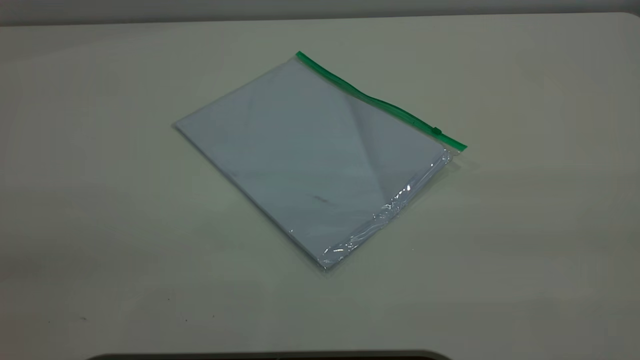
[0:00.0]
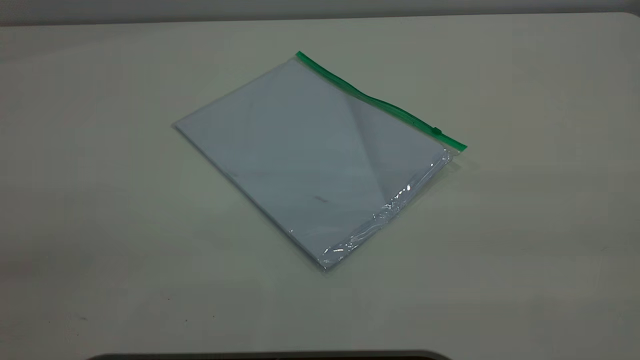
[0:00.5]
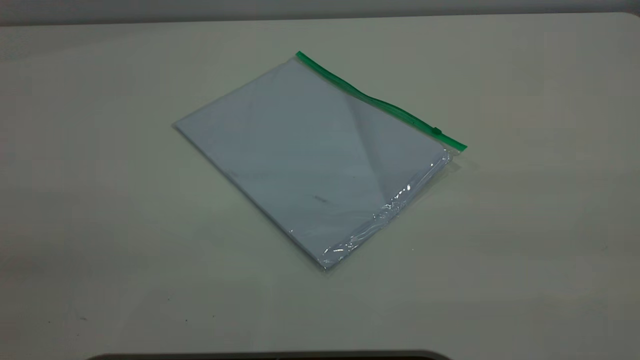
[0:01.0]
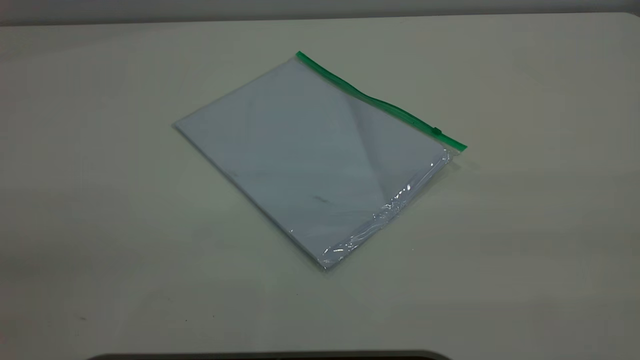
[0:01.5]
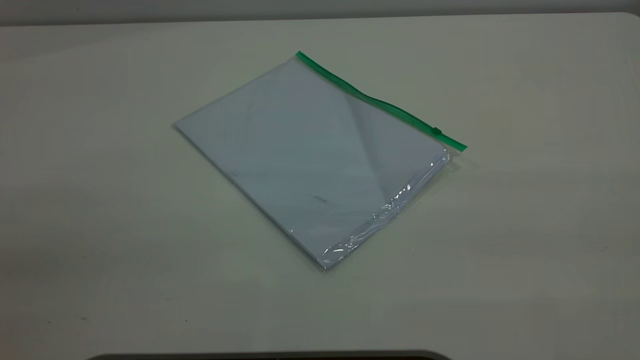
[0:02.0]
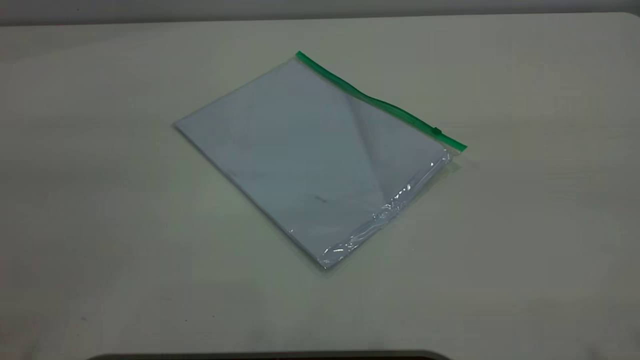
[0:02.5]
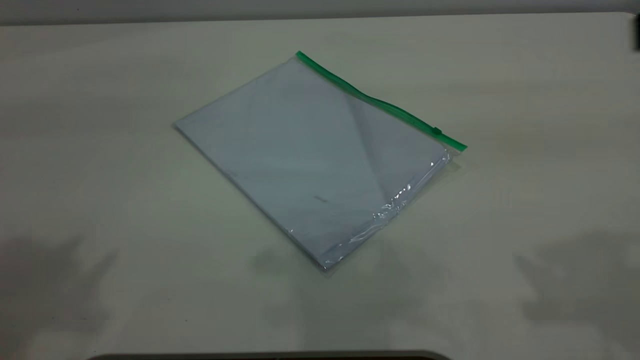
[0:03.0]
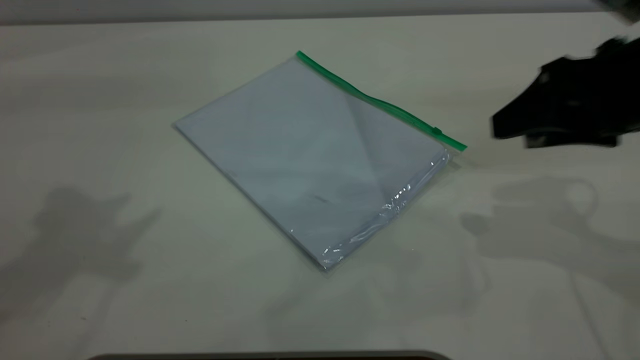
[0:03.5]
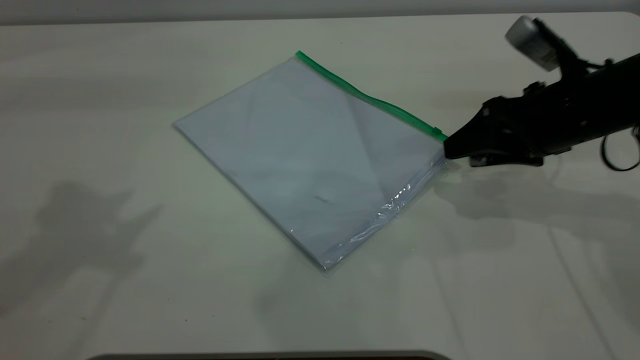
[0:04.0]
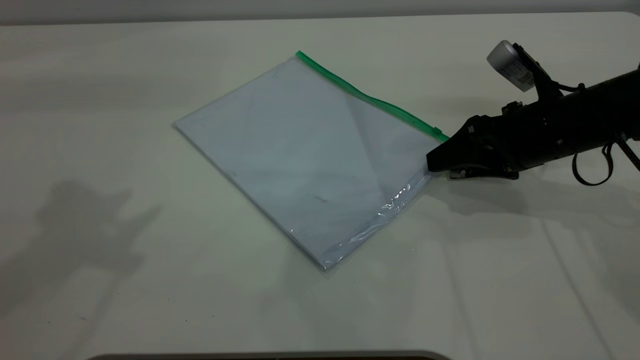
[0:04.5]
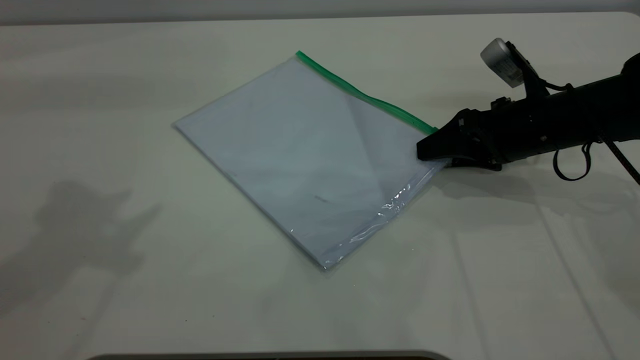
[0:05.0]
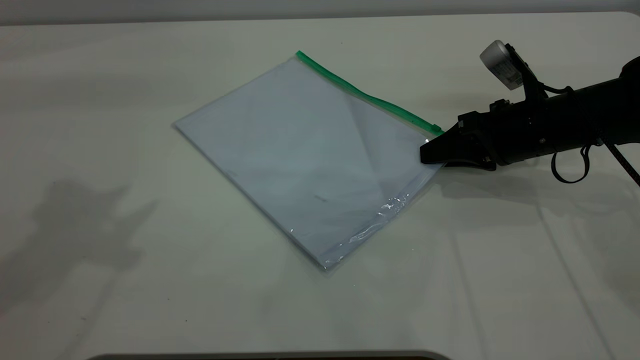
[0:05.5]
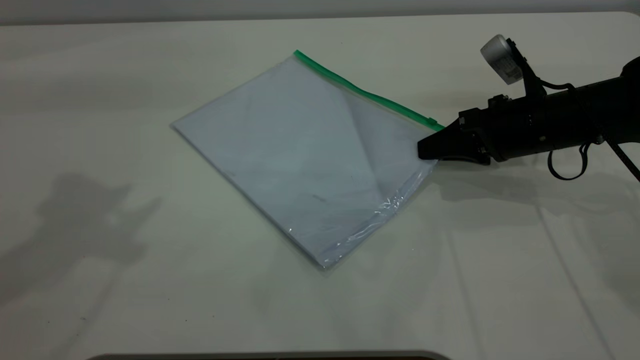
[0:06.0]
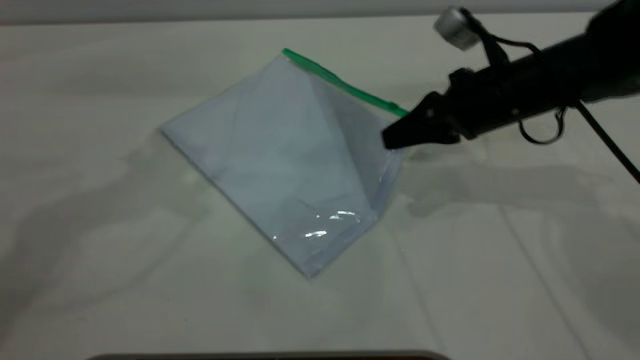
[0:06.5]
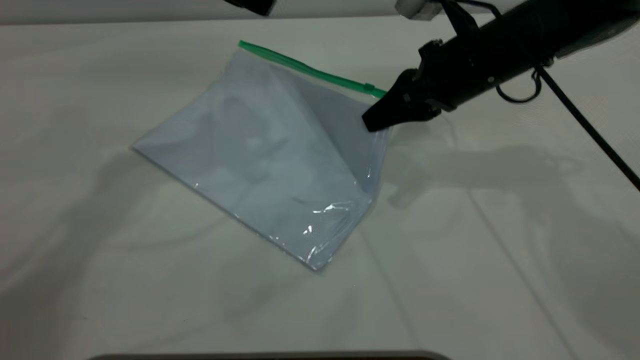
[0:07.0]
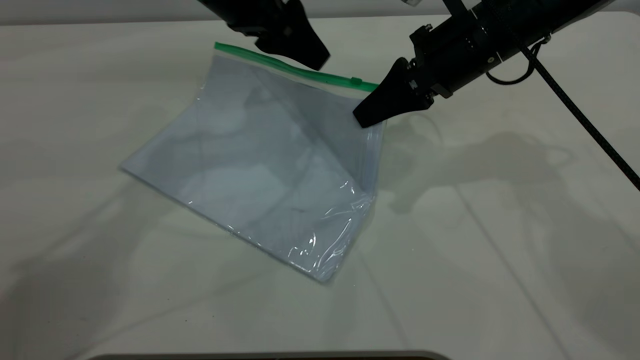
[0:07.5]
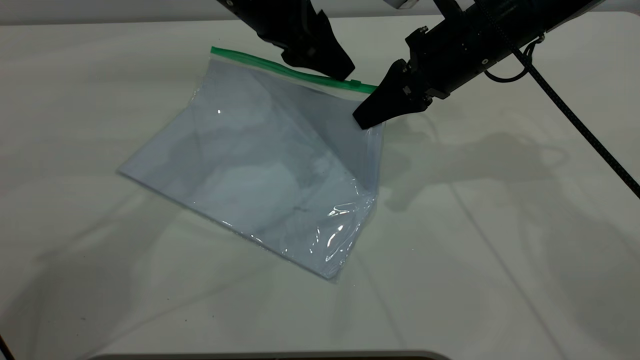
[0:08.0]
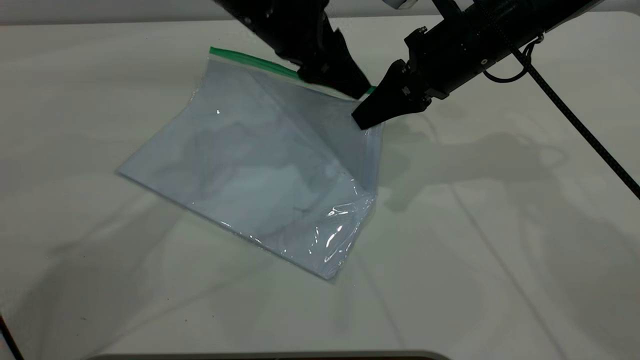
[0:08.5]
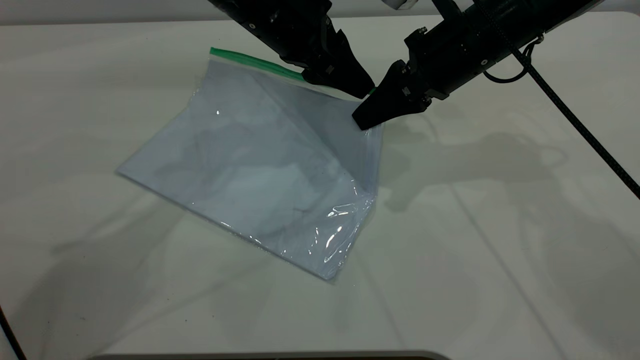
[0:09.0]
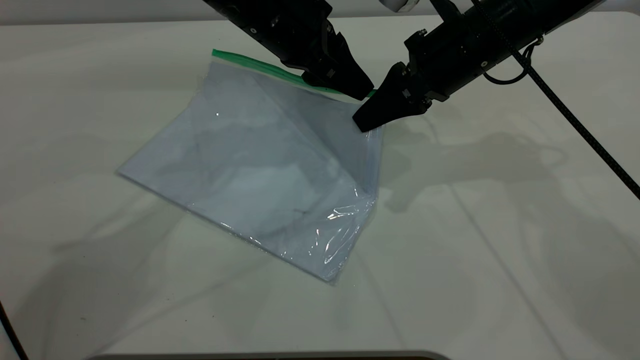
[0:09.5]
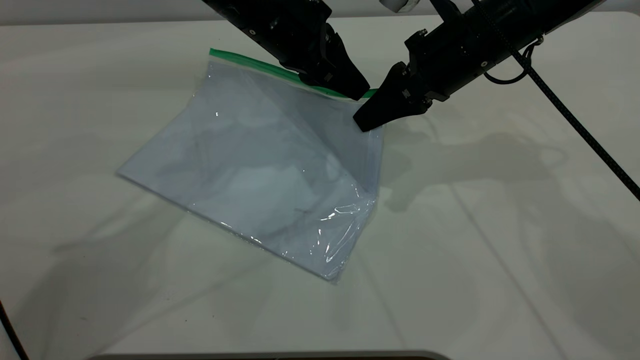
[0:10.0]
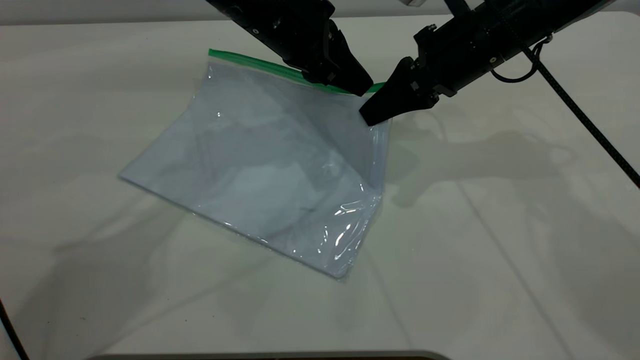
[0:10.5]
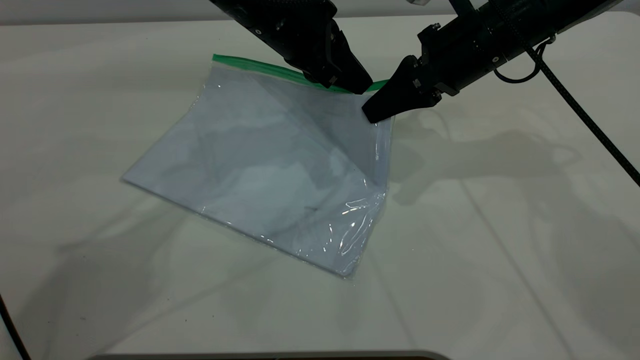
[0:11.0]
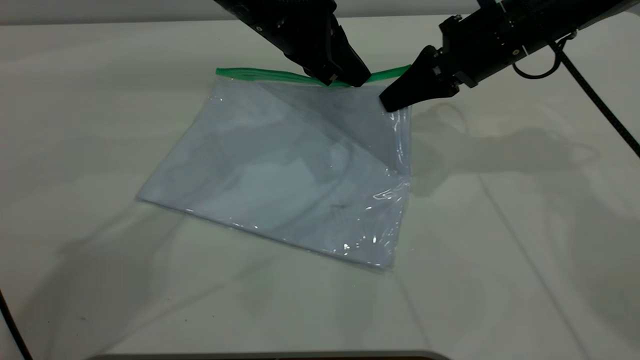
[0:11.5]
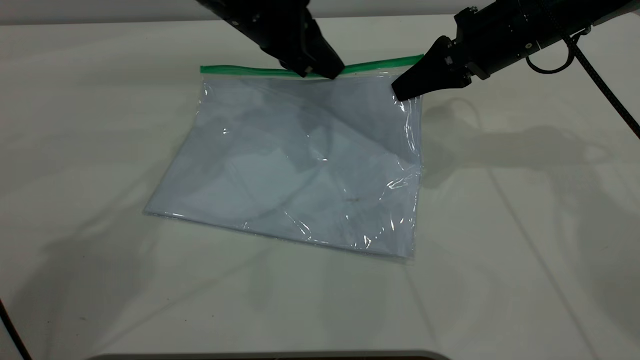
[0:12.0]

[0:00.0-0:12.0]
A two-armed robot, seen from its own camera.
Step, 0:00.0 to 0:06.5: Pick up the transparent plastic bag with the right gripper.
0:00.0 to 0:02.0: Both grippers stay about where they are.
0:02.0 to 0:04.0: The right gripper moves forward and downward, some 40 cm.
0:04.0 to 0:06.0: The right gripper changes place by approximately 5 cm, and closes.
0:06.0 to 0:08.0: The left gripper moves to the right, downward and forward, about 30 cm. Meanwhile the right gripper heads upward and to the left, covering some 10 cm.
0:08.0 to 0:10.0: The left gripper closes.
0:10.0 to 0:12.0: The right gripper travels to the right by some 5 cm.

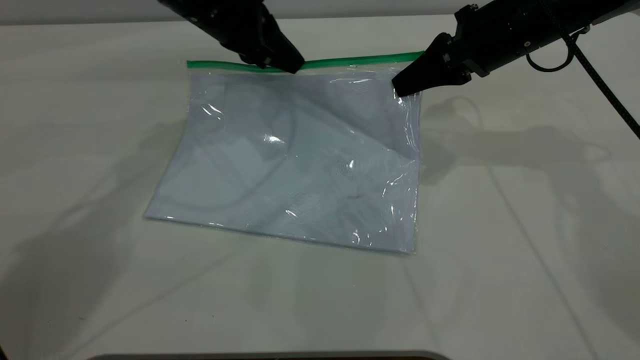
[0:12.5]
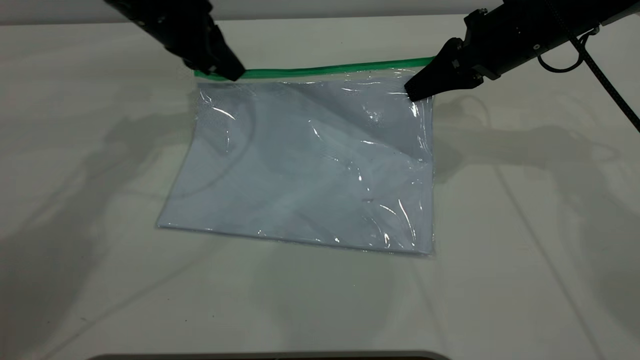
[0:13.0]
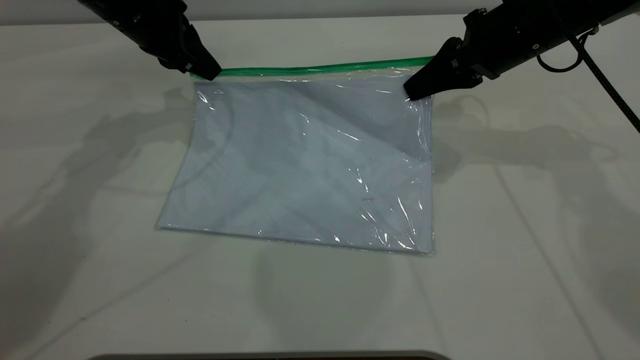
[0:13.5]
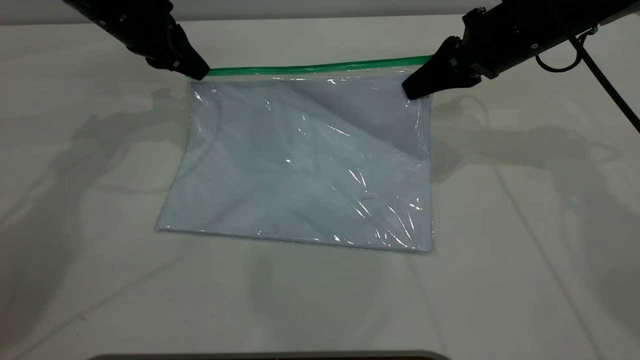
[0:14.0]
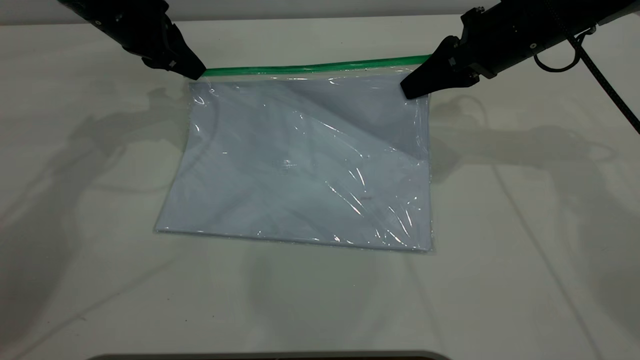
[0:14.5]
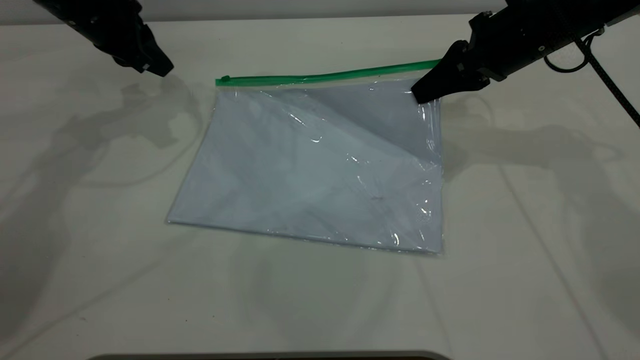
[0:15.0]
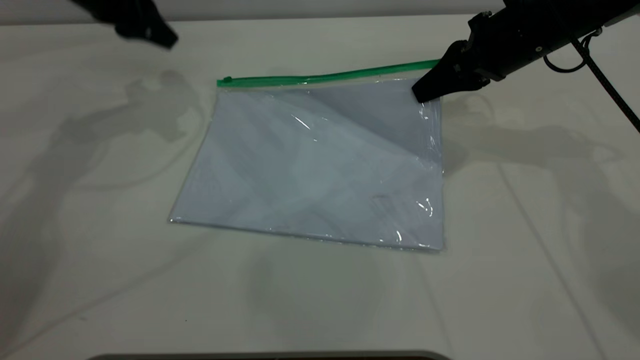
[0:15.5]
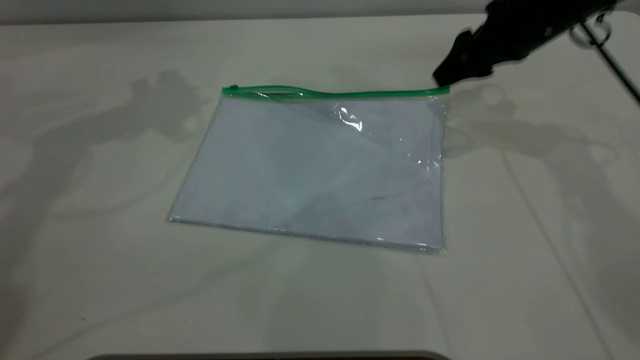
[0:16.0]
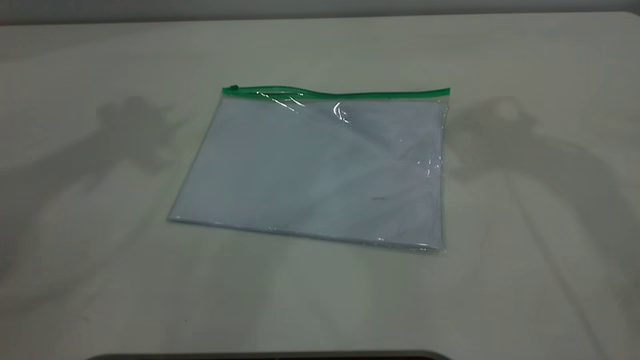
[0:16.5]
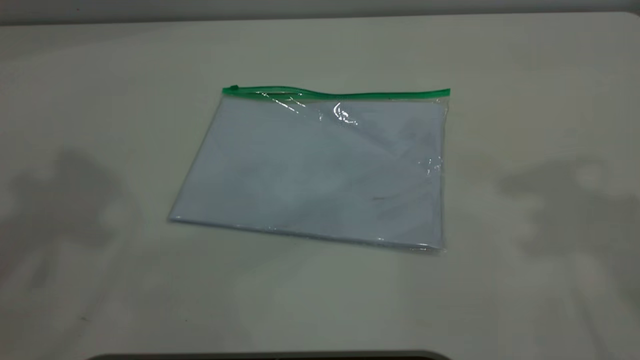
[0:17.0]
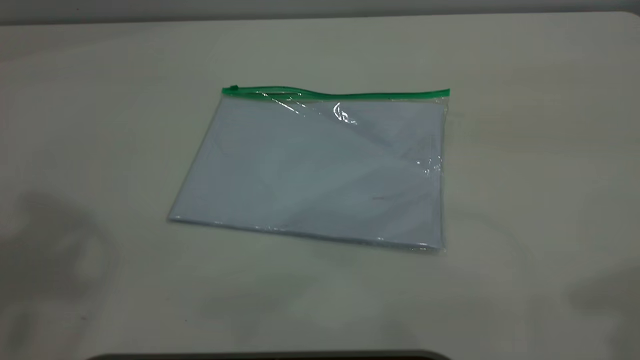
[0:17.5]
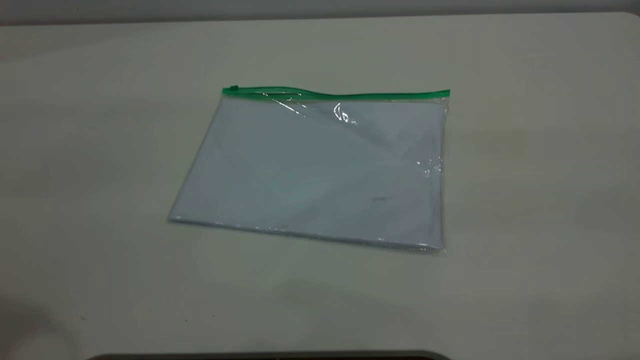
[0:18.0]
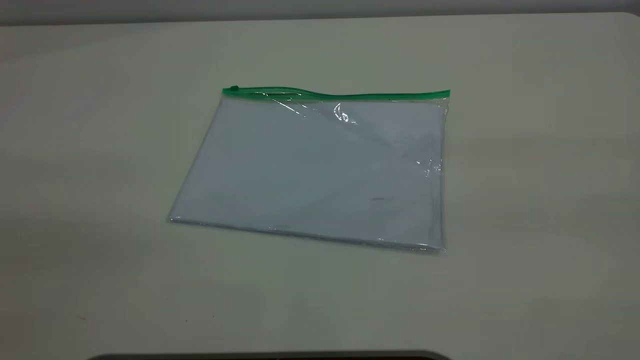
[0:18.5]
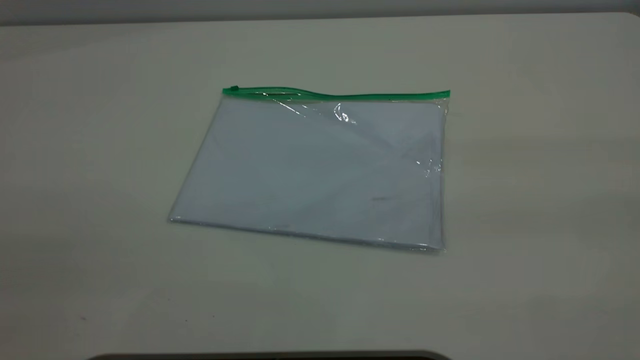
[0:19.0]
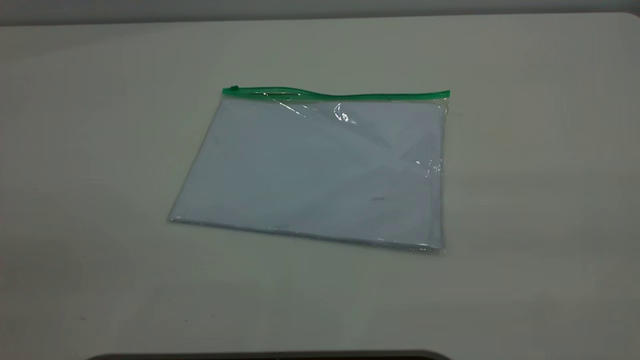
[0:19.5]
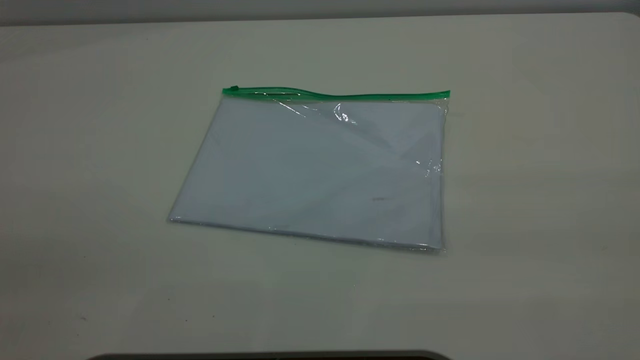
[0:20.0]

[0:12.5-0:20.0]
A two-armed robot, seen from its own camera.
Step, 0:12.5 to 0:14.5: Pulling up the zipper on the transparent plastic bag with the left gripper to close it.
Step, 0:15.0 to 0:16.0: Place the transparent plastic bag.
0:12.5 to 0:14.5: The left gripper goes some 10 cm to the left.
0:14.5 to 0:16.5: The two grippers go about 30 cm upward. The left gripper opens up. The right gripper opens its fingers.
